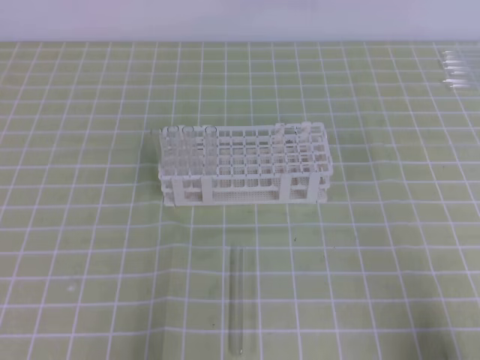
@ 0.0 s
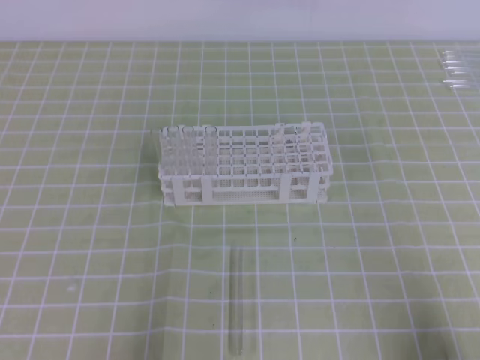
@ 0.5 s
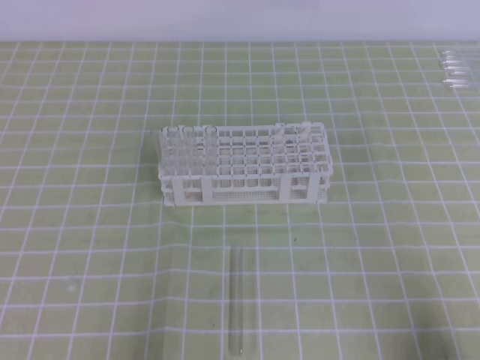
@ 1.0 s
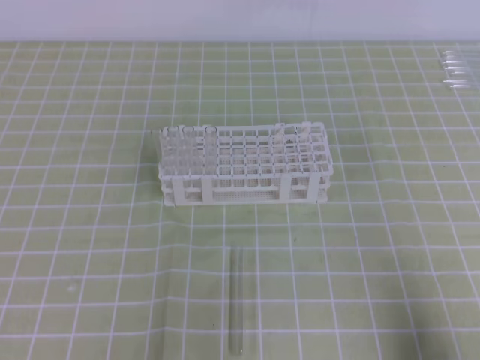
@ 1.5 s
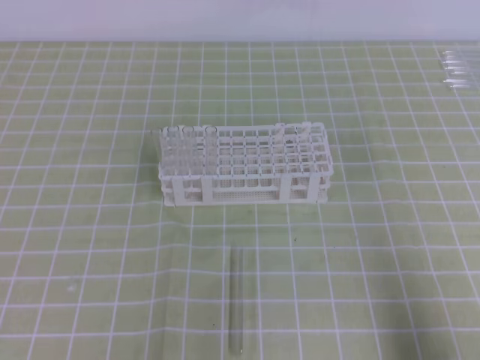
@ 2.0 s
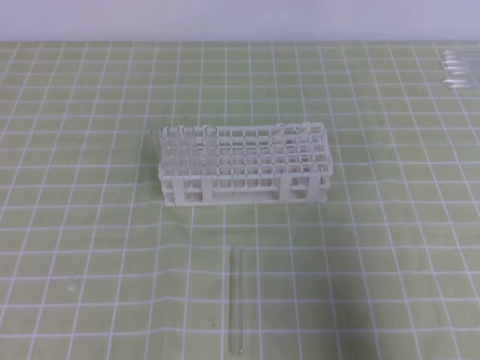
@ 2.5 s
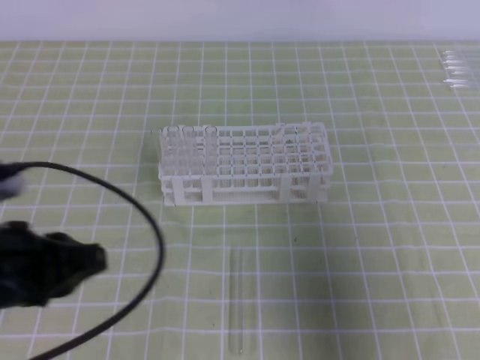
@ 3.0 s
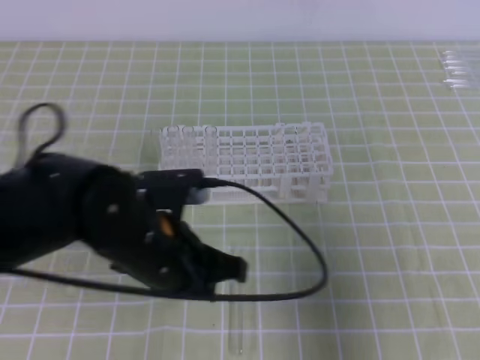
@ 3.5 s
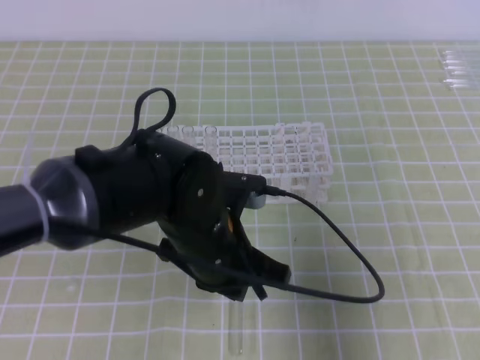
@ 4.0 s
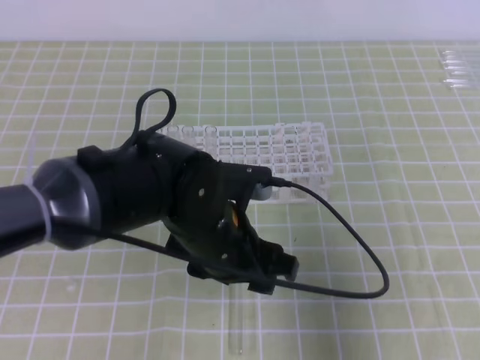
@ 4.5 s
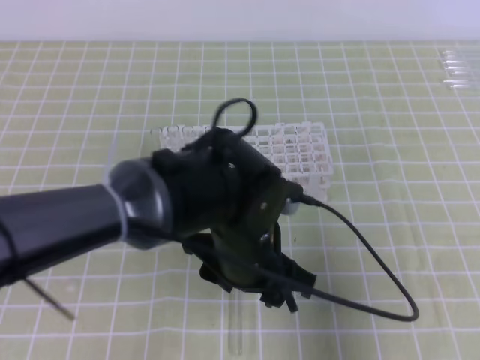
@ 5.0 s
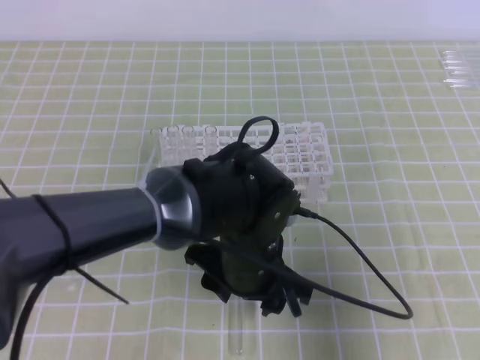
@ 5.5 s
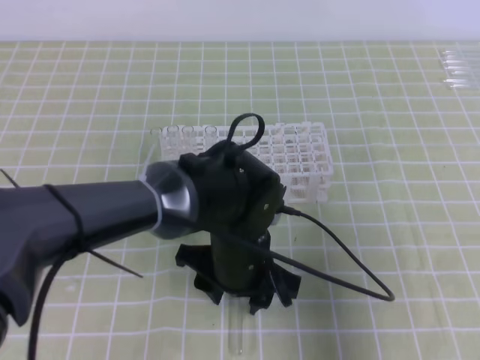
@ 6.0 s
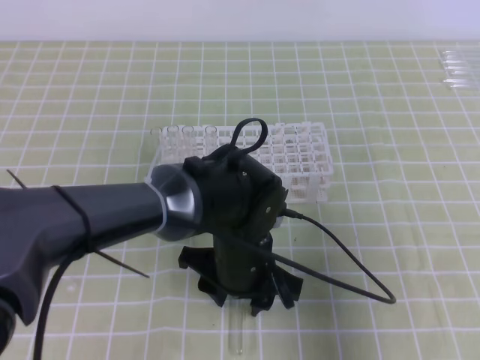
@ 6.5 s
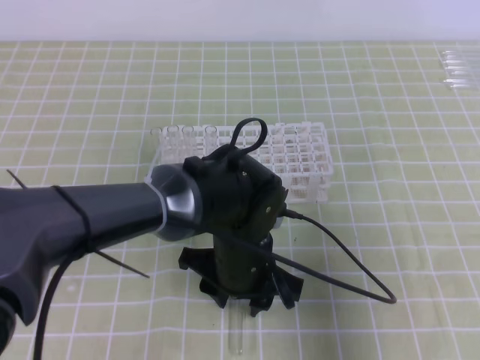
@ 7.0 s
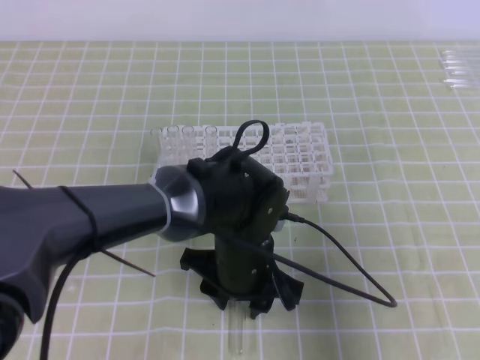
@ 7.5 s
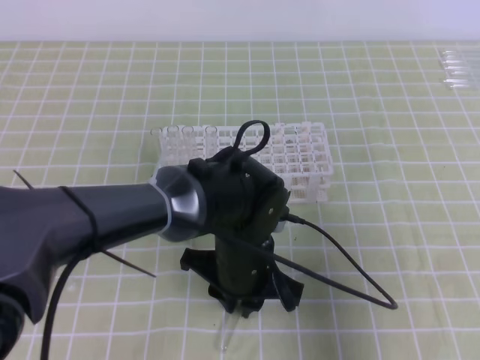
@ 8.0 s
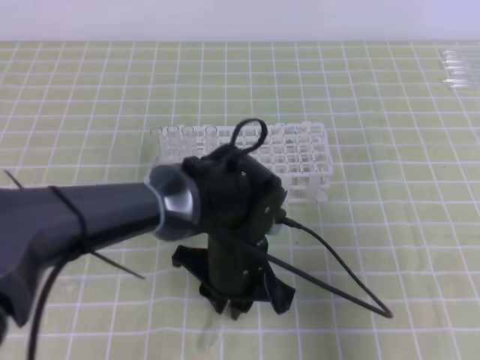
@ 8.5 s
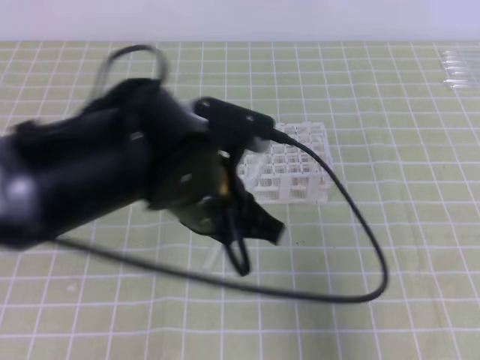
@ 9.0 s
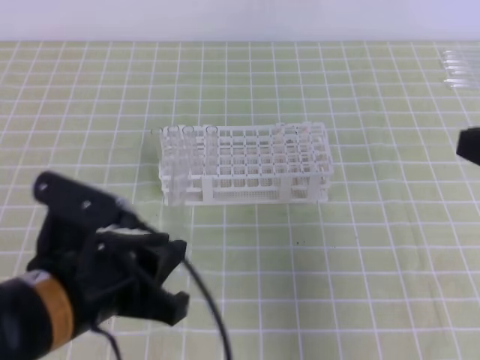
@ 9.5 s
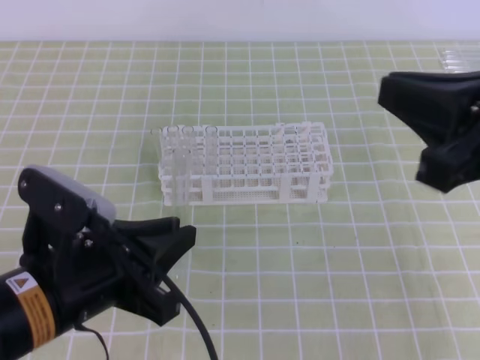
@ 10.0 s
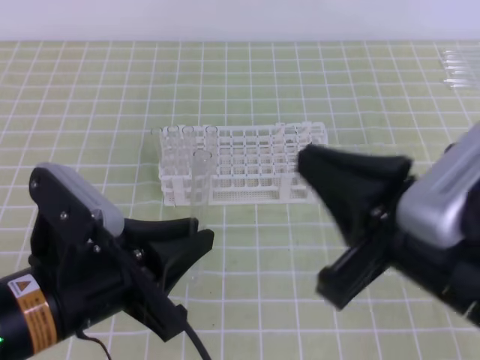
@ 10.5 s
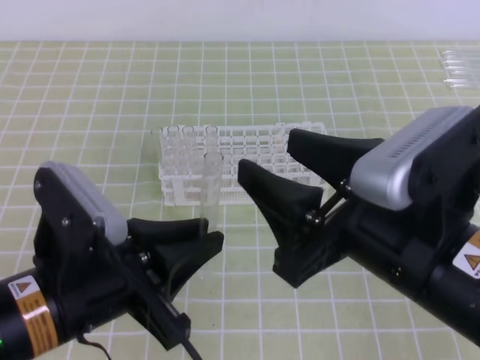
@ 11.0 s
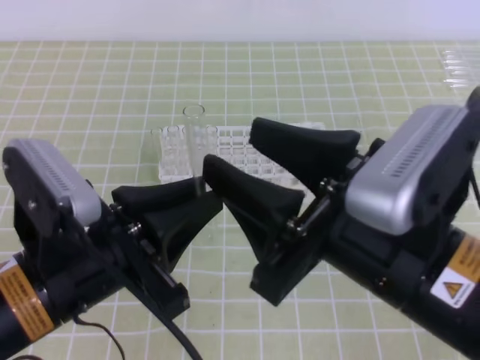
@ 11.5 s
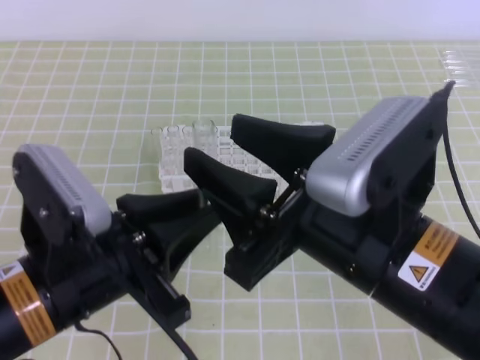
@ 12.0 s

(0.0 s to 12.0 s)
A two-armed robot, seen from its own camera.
2.0 s - 4.0 s: The left gripper travels to the right and forward by approximately 30 cm. Meanwhile the right gripper is displaced upward and forward by roughly 10 cm.
4.0 s - 6.0 s: The left gripper ends up approximately 5 cm from where it was, and opens up.
6.0 s - 8.0 s: The left gripper closes its fingers.
8.0 s - 10.0 s: The right gripper shifts approximately 10 cm to the left and upward, while the left gripper moves to the left, backward and upward, roughly 20 cm.
10.0 s - 12.0 s: The right gripper heads to the left, covering approximately 10 cm, and opens its fingers.

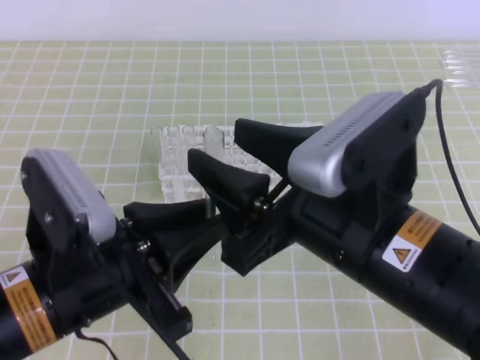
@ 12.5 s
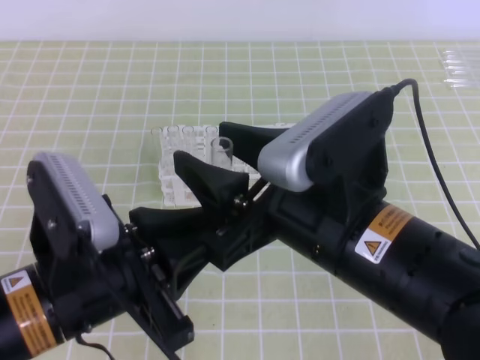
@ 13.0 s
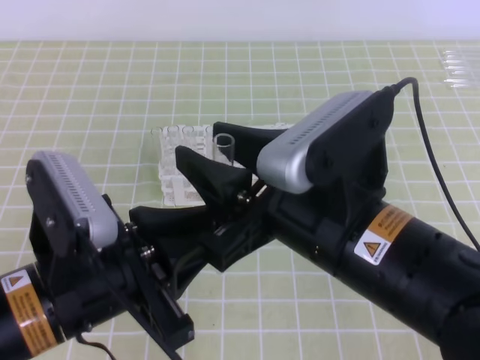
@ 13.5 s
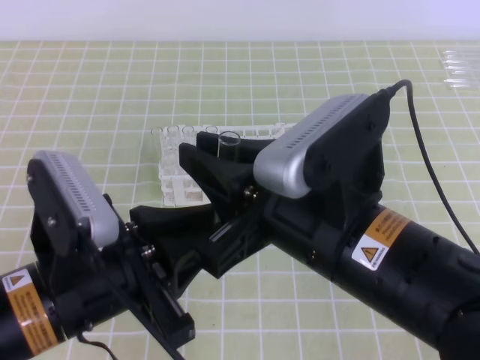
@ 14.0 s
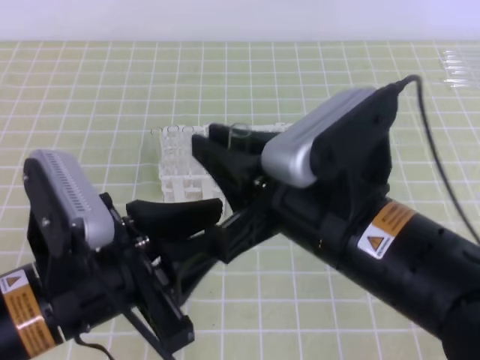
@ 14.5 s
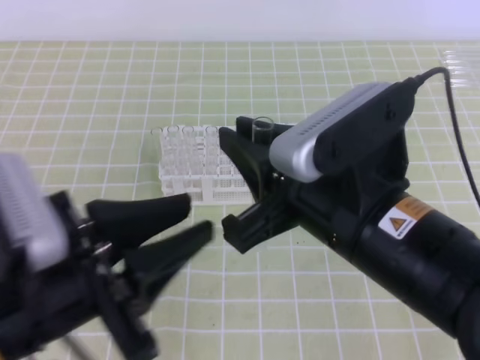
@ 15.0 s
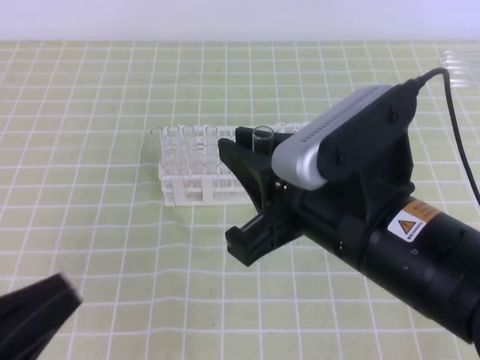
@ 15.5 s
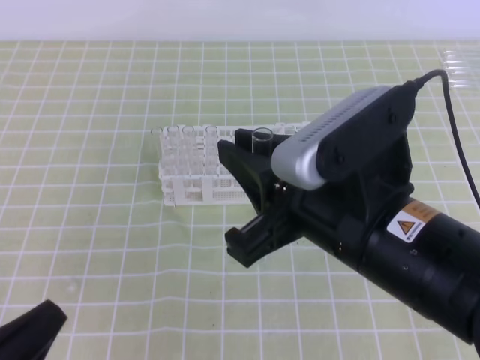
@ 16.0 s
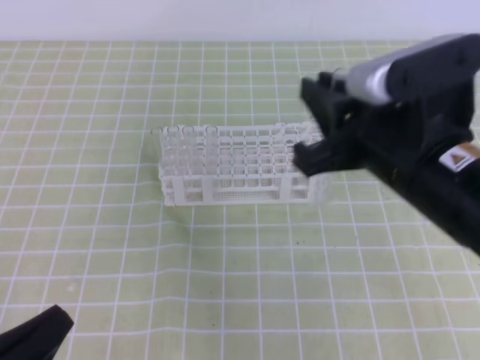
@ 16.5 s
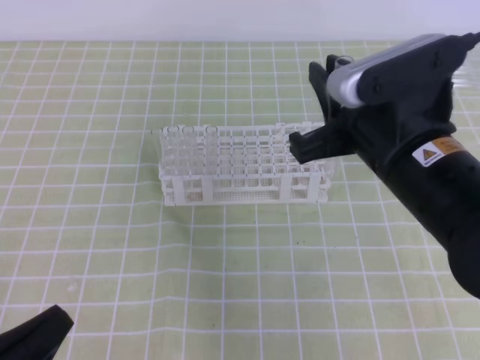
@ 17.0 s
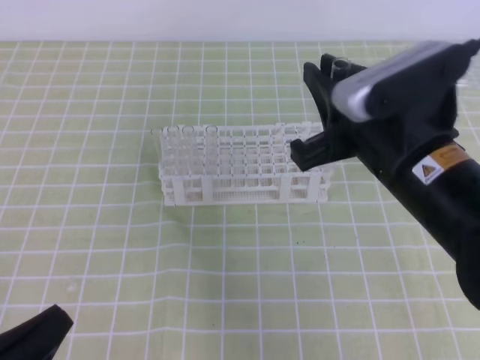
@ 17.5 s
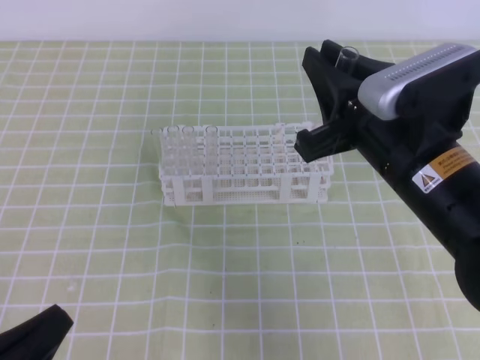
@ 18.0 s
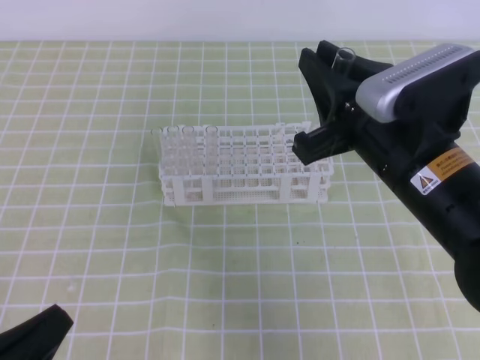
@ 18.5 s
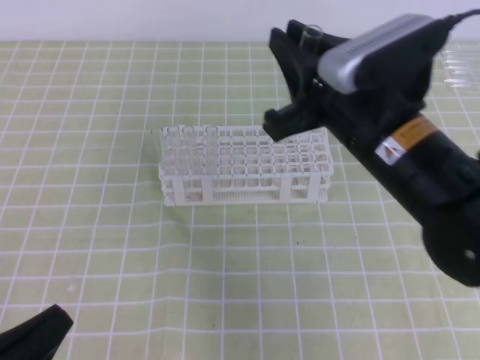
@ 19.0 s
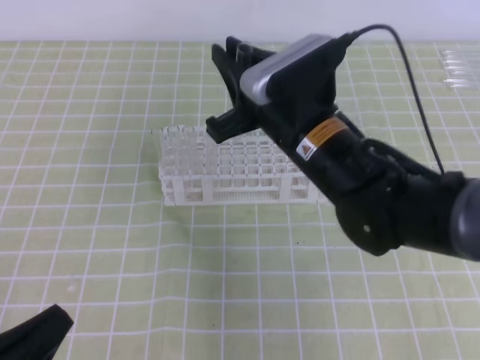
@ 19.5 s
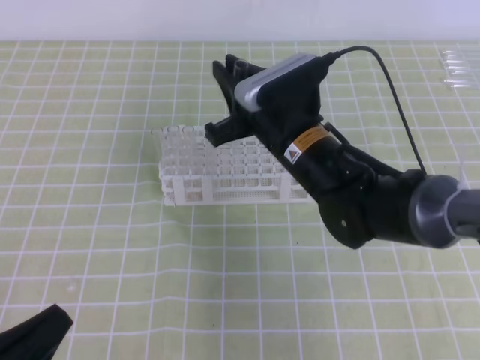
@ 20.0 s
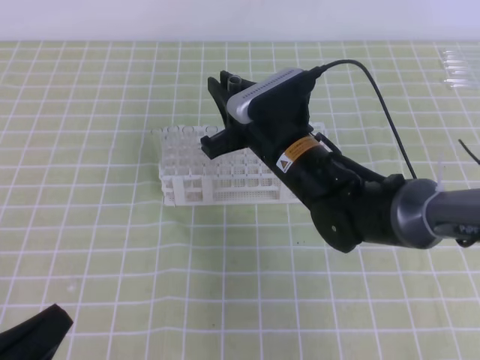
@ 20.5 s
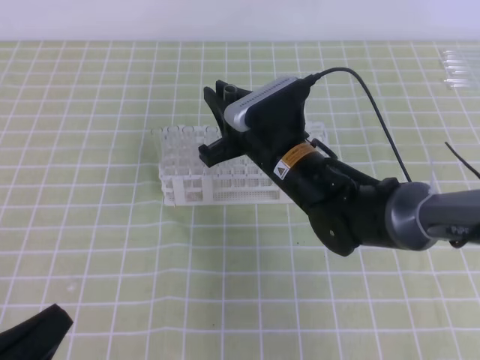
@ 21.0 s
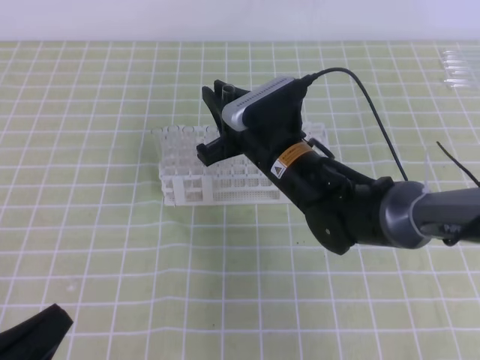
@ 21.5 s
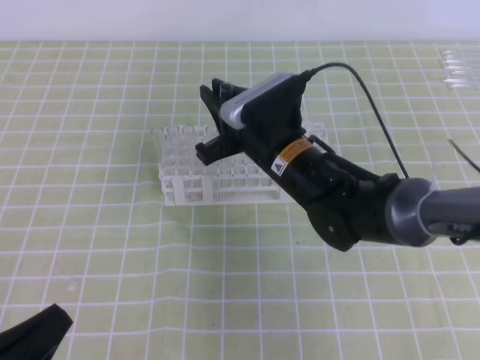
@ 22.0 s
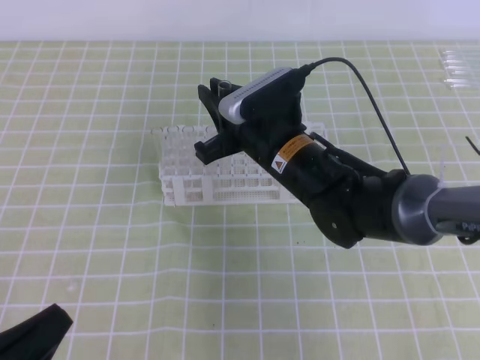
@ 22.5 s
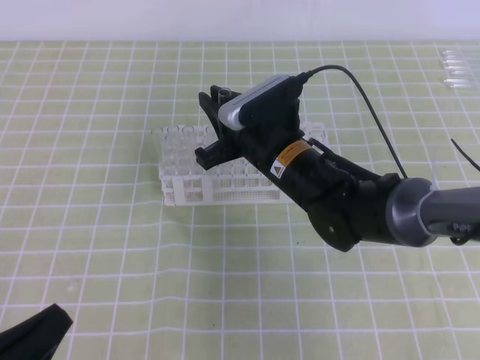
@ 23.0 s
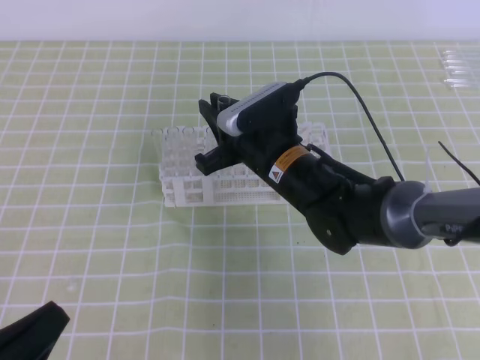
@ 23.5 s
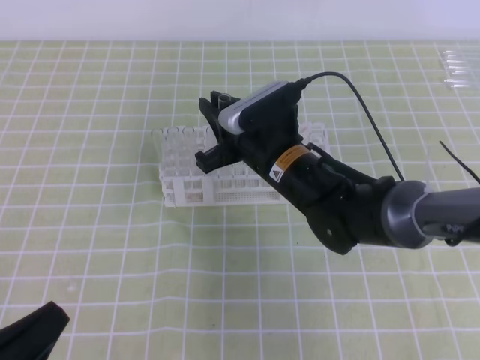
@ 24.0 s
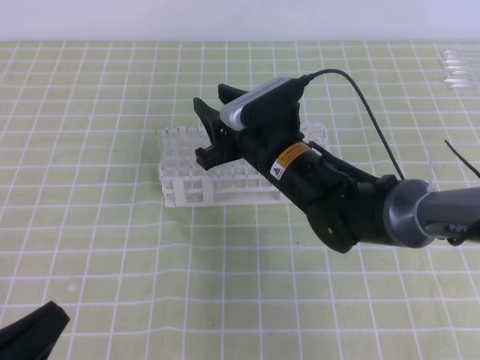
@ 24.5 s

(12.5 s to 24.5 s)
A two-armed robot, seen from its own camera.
12.5 s - 14.5 s: The right gripper closes up; the left gripper opens its fingers.
14.5 s - 16.5 s: The right gripper changes place by about 5 cm; the left gripper goes about 15 cm to the left, downward and backward, and closes up.
16.5 s - 18.5 s: The grippers make only small movements.
18.5 s - 20.5 s: The right gripper goes approximately 15 cm forward, to the left and downward.
20.5 s - 22.5 s: The grippers make only small movements.
22.5 s - 24.5 s: The right gripper opens its fingers.

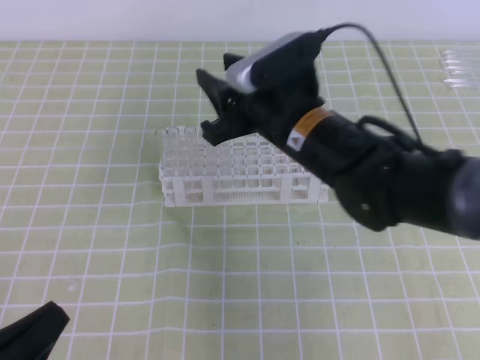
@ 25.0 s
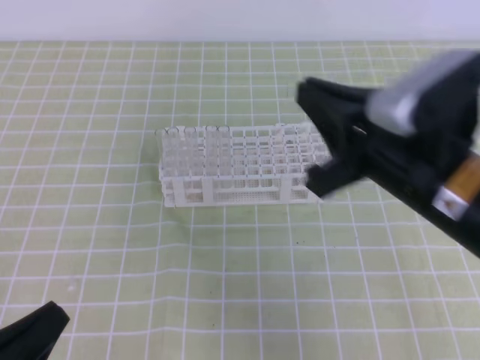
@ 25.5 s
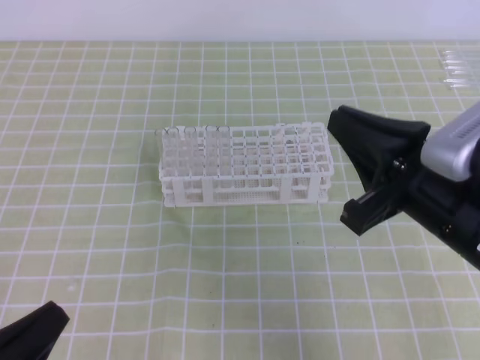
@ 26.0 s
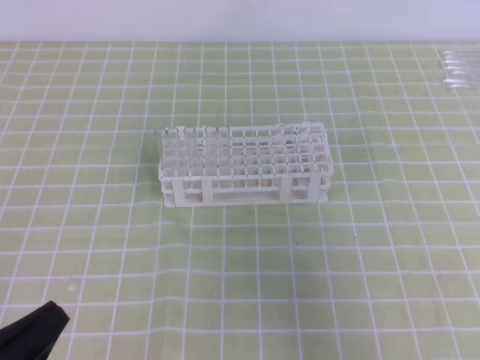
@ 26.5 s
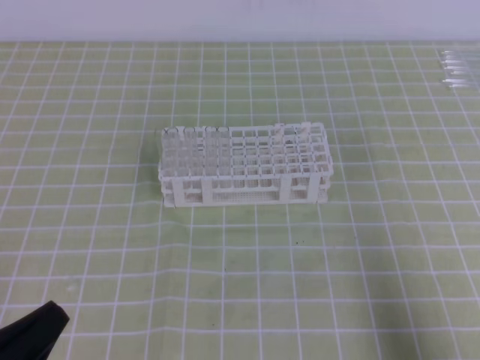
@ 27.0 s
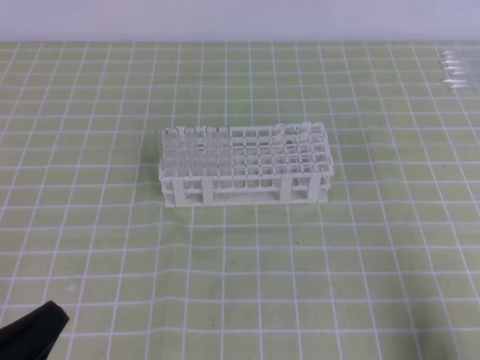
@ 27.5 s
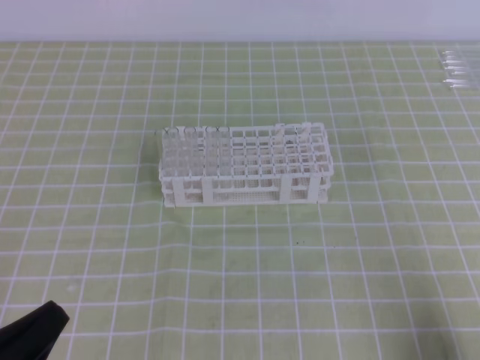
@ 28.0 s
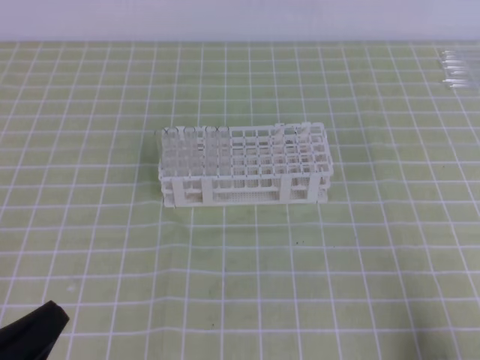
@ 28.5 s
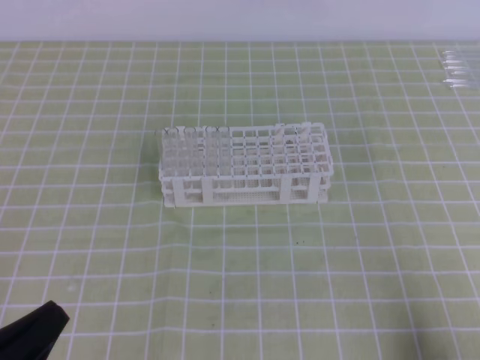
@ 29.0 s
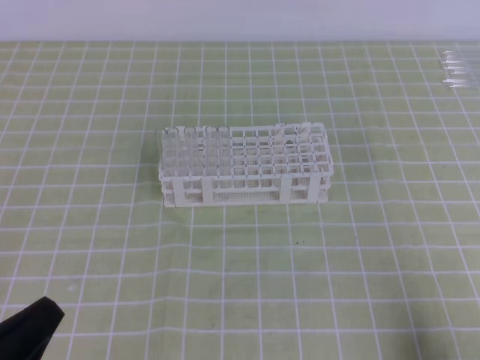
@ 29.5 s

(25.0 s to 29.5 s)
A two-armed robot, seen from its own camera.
25.0 s - 27.0 s: The right gripper heads to the right and backward, covering roughly 35 cm, and closes its fingers.
